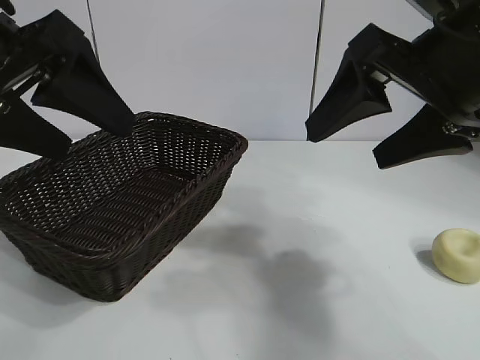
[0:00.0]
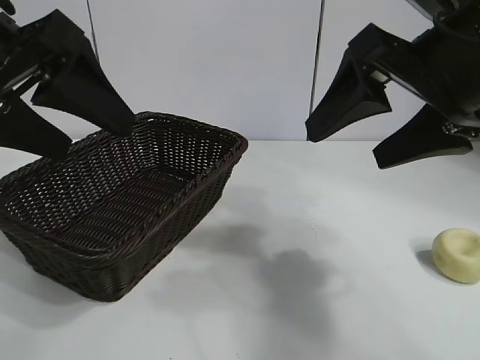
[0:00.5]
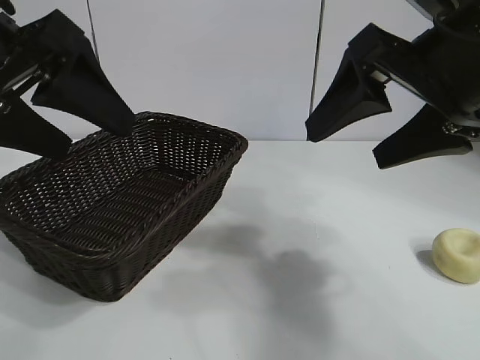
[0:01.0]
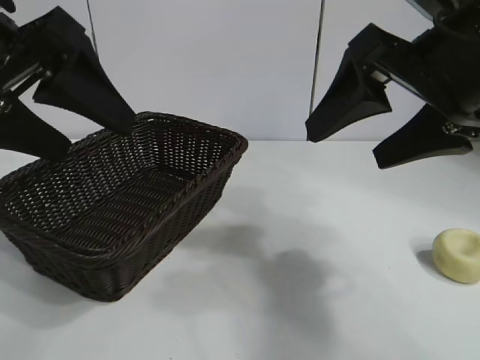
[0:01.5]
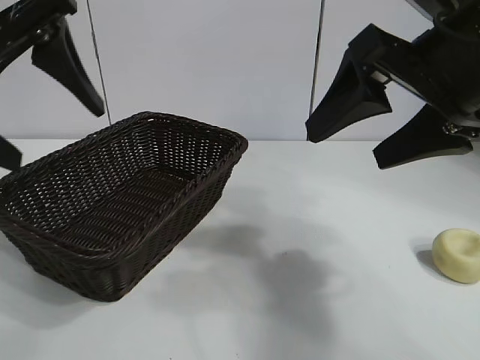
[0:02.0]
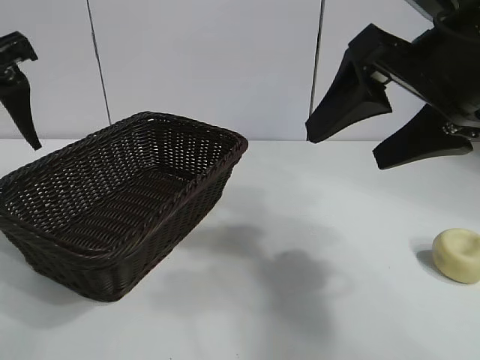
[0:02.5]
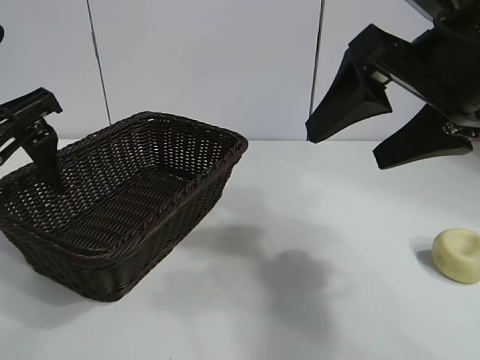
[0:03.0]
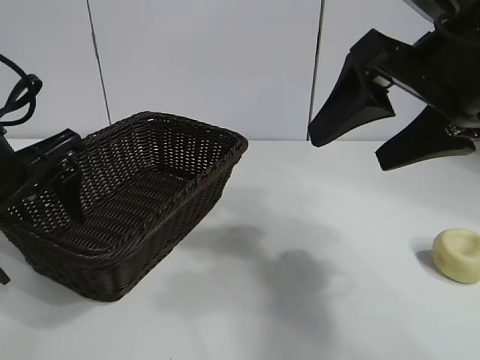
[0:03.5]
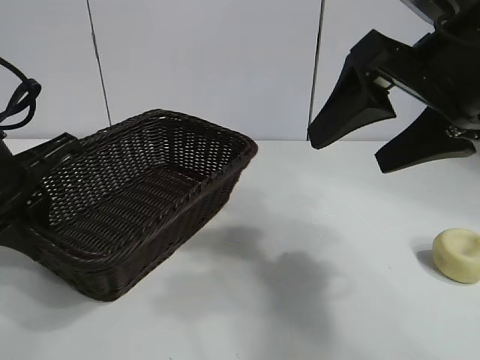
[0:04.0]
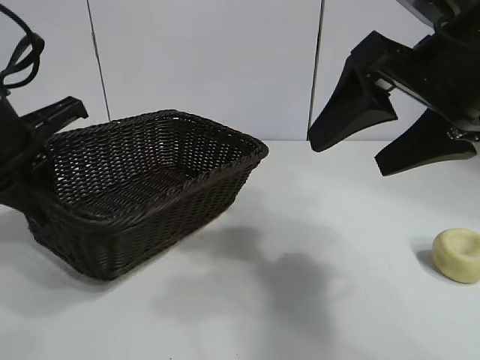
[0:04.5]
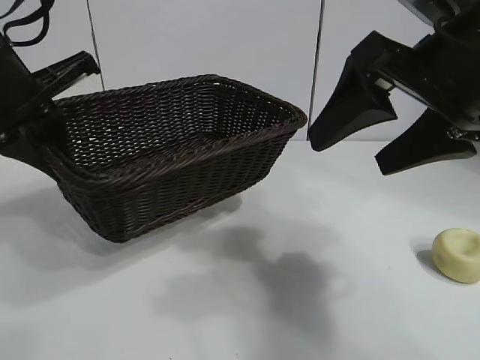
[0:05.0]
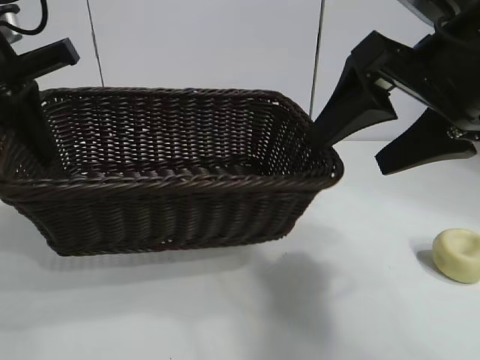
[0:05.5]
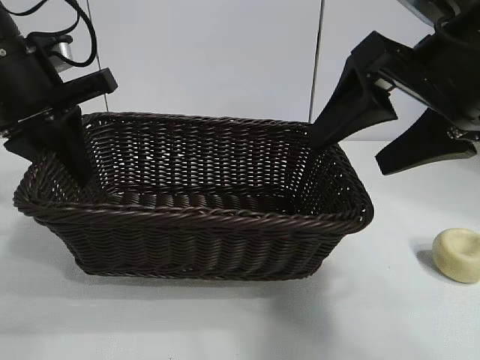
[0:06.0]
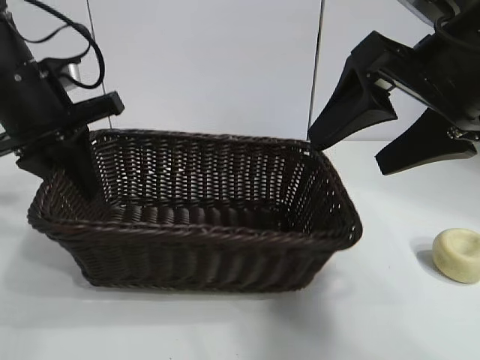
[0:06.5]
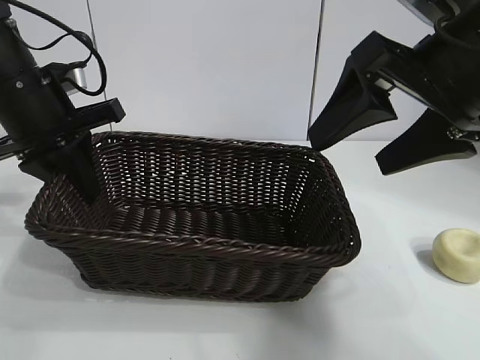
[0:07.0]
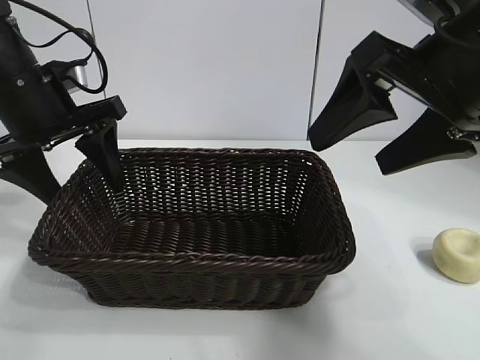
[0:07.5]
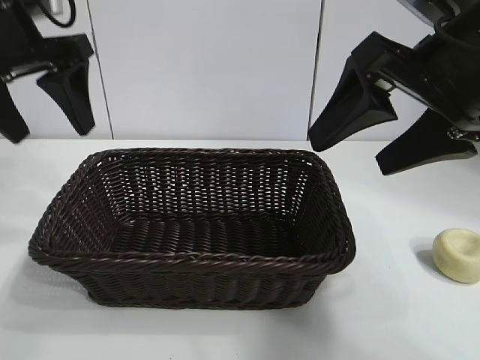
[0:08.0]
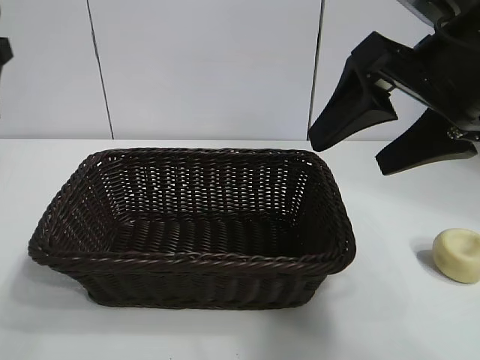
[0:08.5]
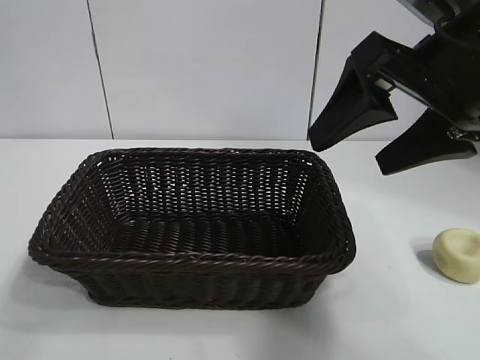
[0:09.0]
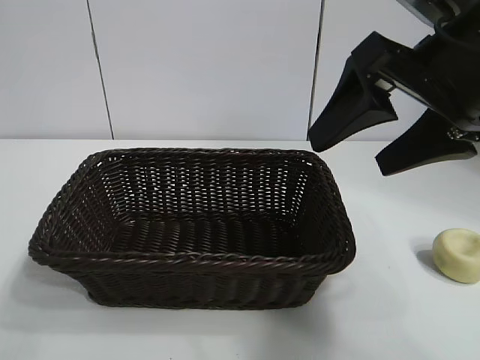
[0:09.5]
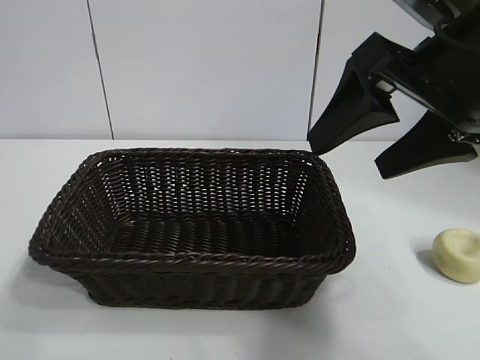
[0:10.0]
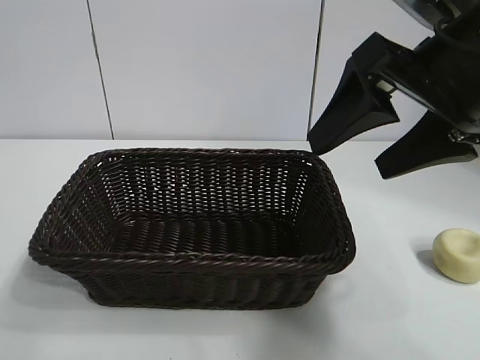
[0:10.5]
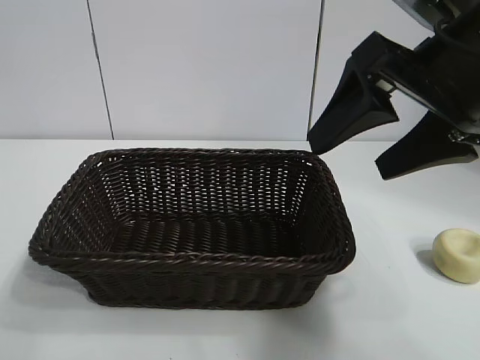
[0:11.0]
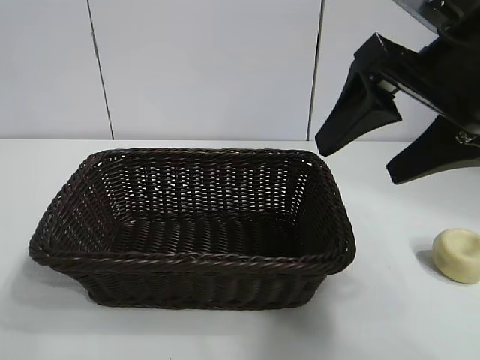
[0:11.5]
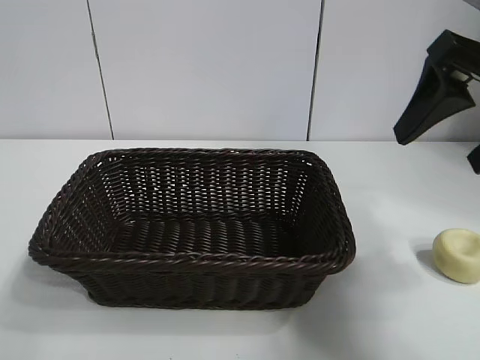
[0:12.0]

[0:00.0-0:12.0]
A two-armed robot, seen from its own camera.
Task of the whole recording: pick up the egg yolk pastry and put it into the basket.
Step, 0:01.5 to 0:04.0: Grasp the basket with left gripper.
Step, 0:04.5 to 0:07.5: Place the basket in the center of view with left gripper.

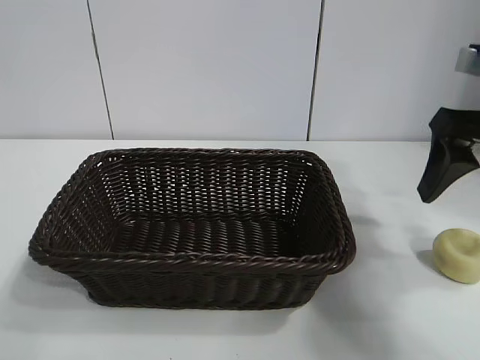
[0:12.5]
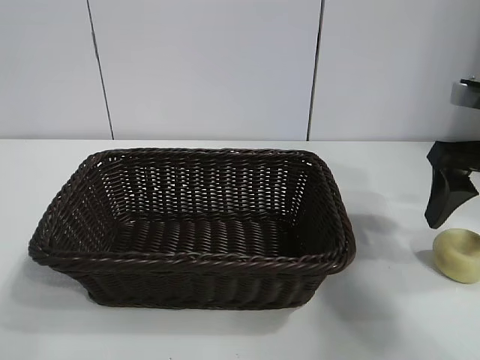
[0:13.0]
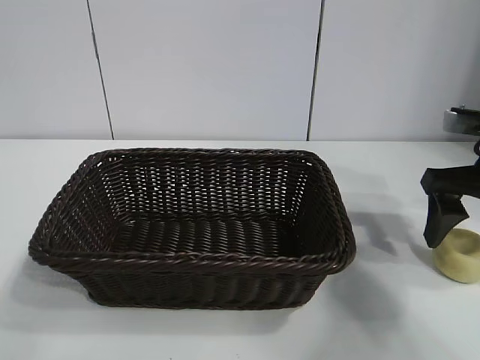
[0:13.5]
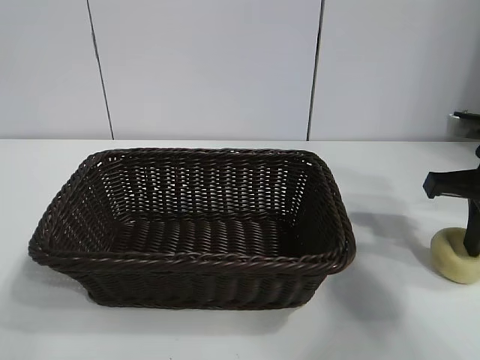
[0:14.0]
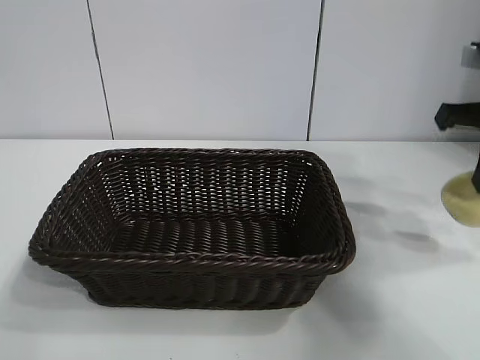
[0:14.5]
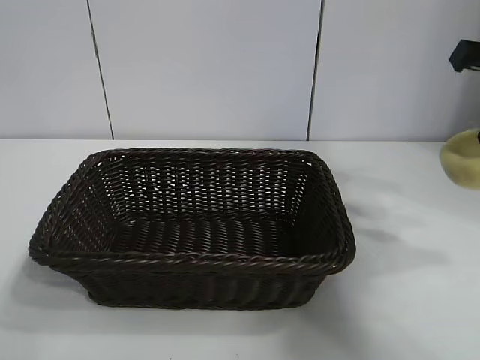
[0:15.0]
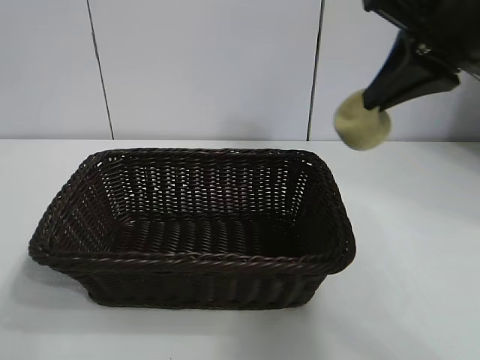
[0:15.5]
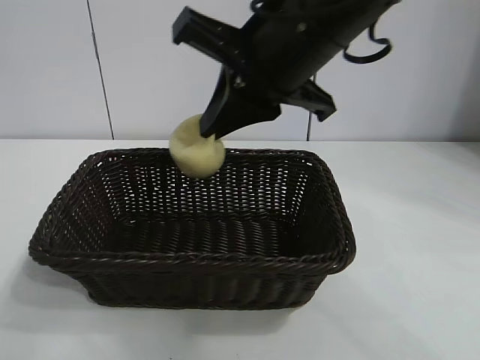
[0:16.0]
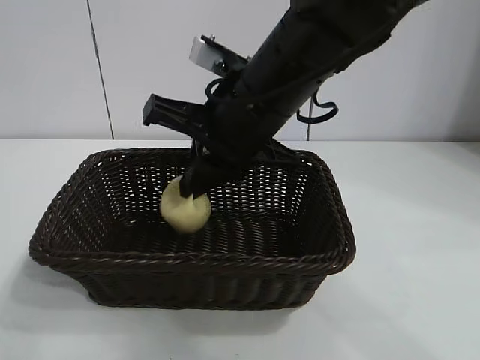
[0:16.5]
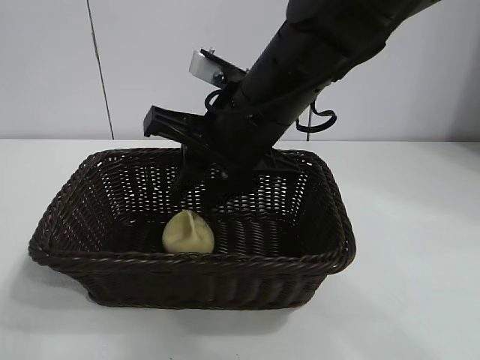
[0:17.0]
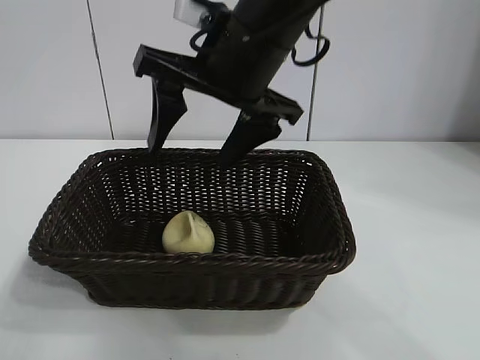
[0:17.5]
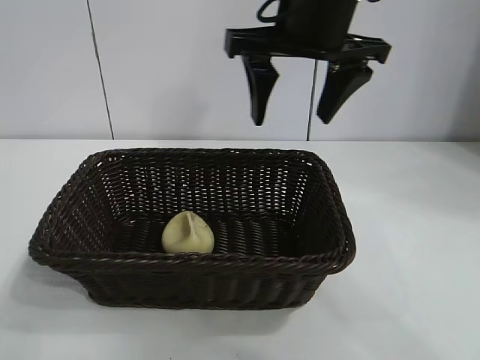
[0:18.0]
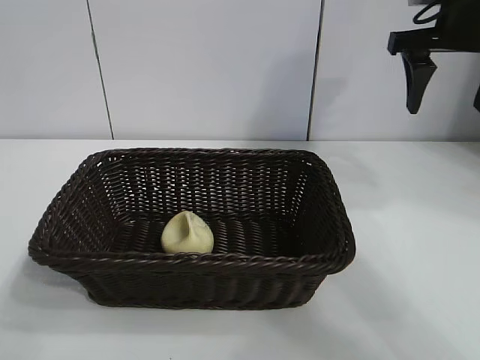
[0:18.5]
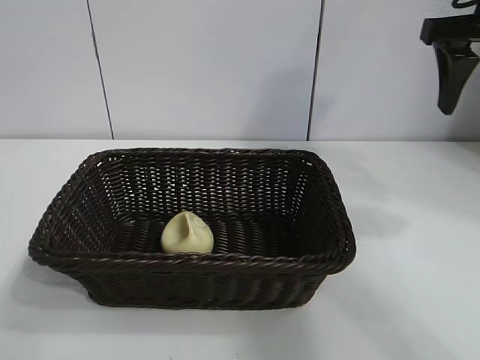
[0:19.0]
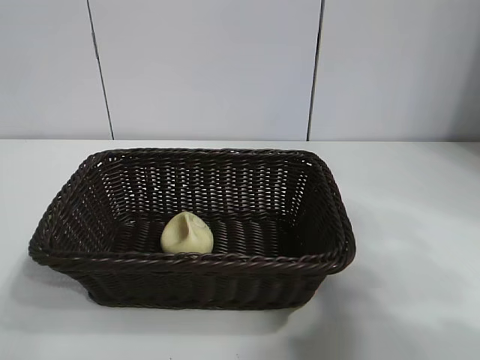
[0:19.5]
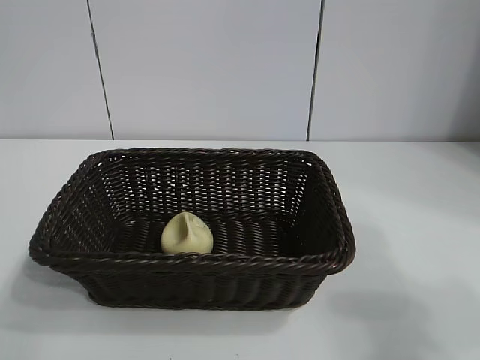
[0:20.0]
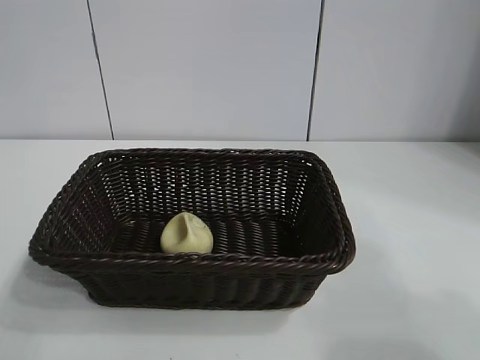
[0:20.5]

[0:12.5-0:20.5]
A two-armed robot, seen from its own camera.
Task of the whole recording: pick up the egg yolk pastry and put it into the basket.
Step, 0:14.5 to 0:17.0: Place the egg yolk pastry in the basket with right gripper.
